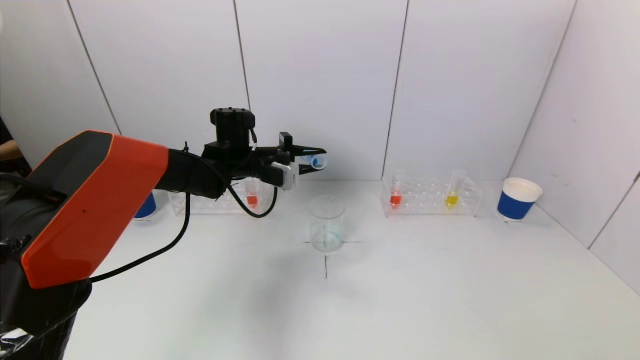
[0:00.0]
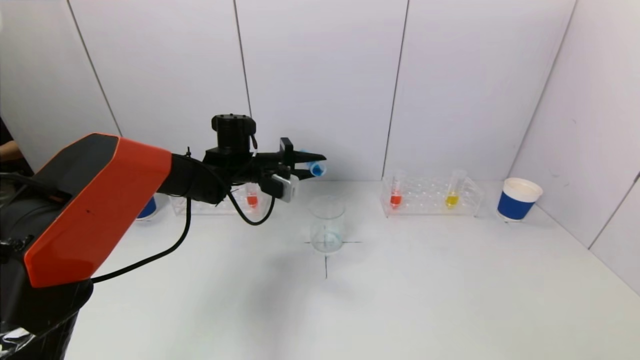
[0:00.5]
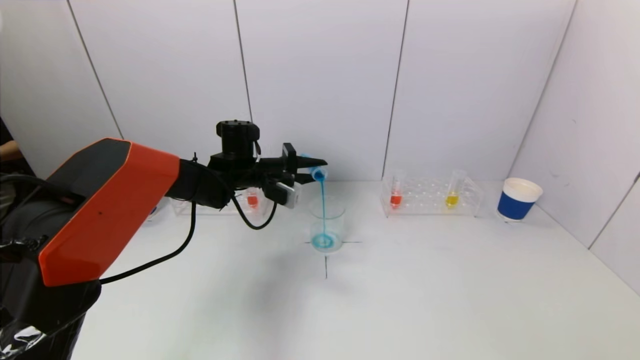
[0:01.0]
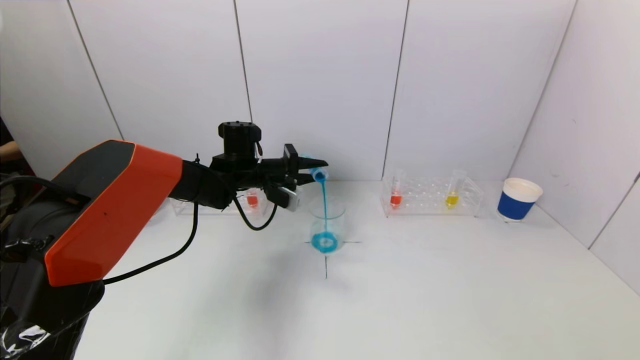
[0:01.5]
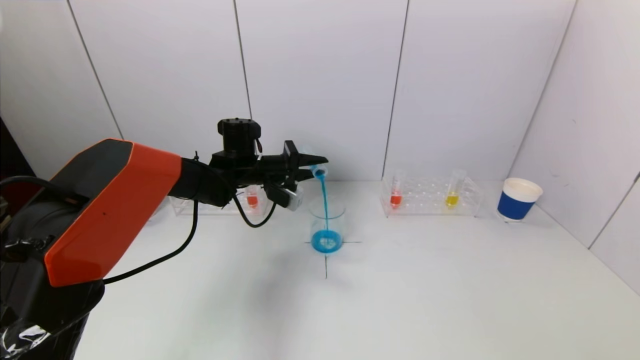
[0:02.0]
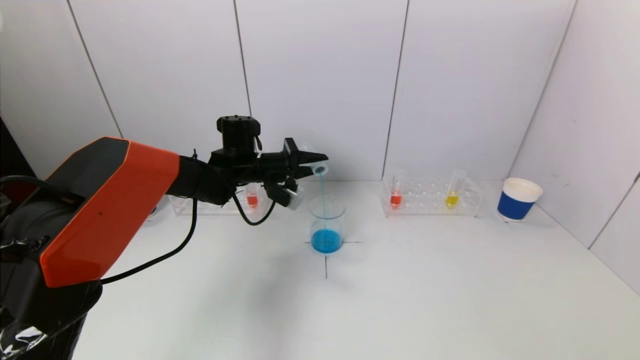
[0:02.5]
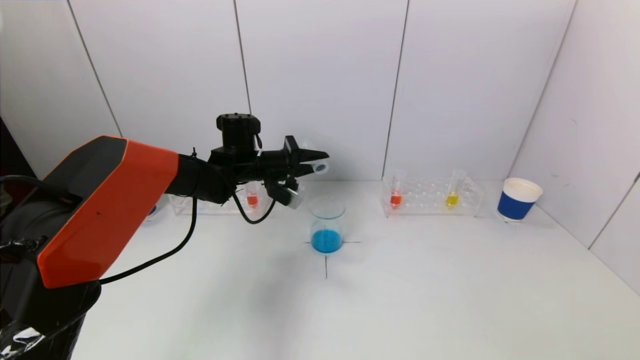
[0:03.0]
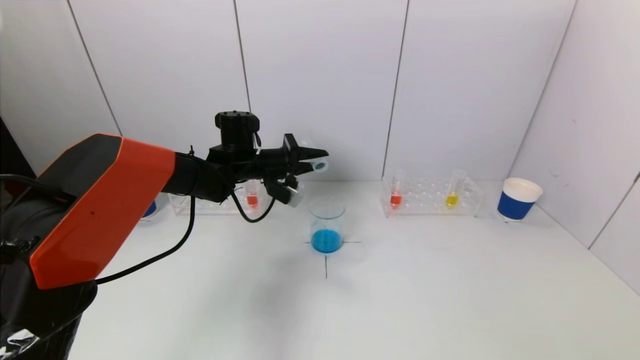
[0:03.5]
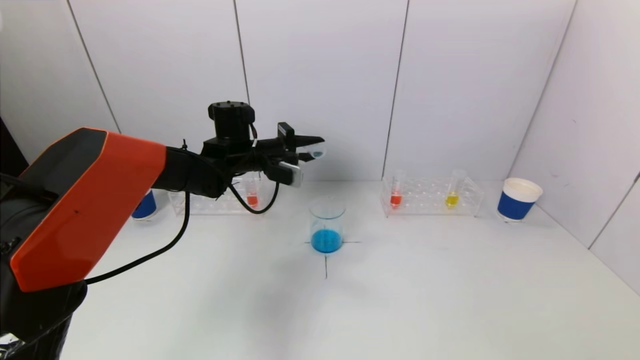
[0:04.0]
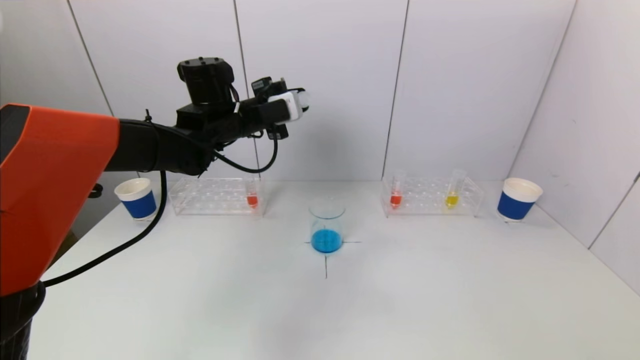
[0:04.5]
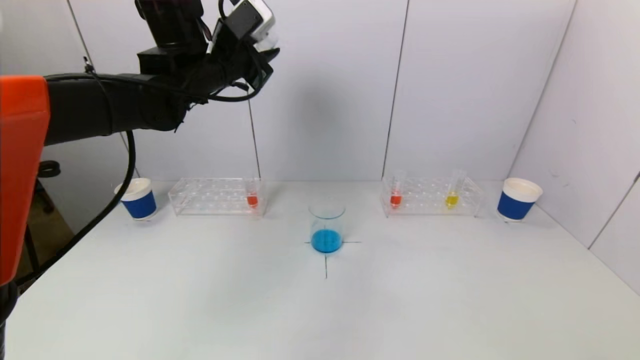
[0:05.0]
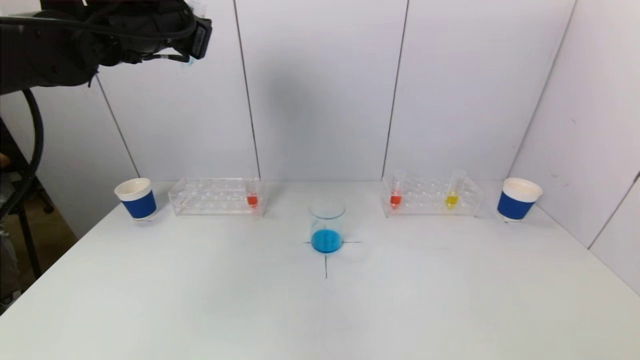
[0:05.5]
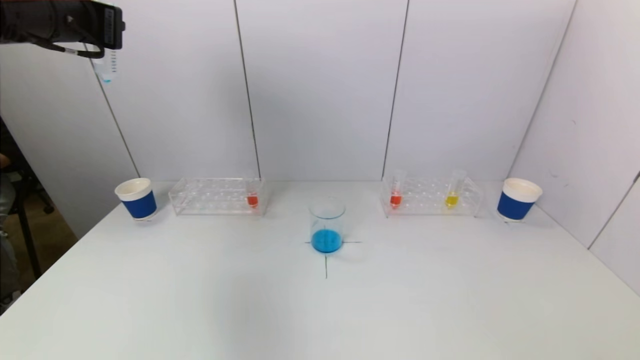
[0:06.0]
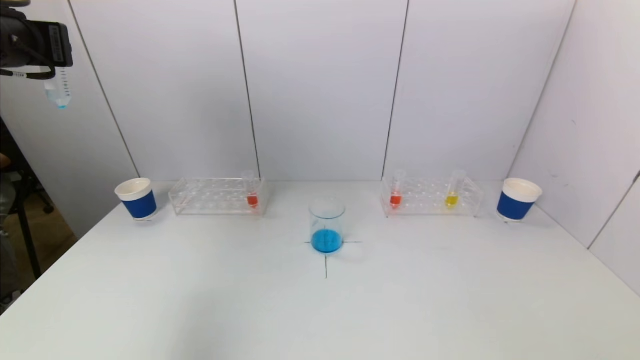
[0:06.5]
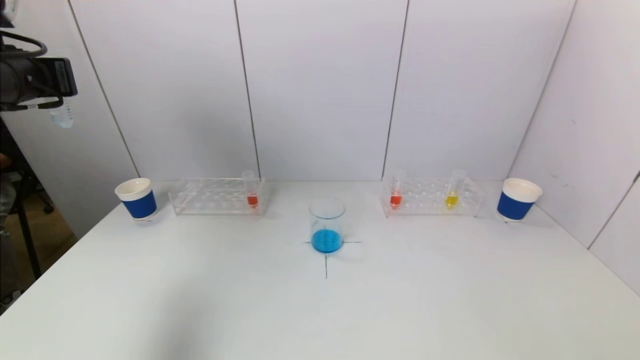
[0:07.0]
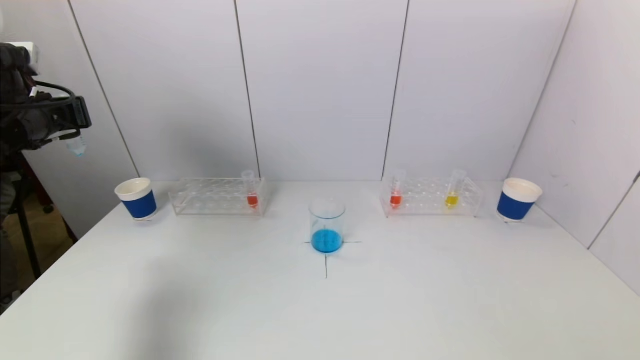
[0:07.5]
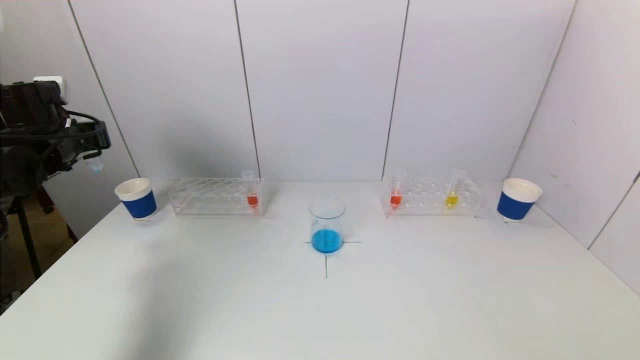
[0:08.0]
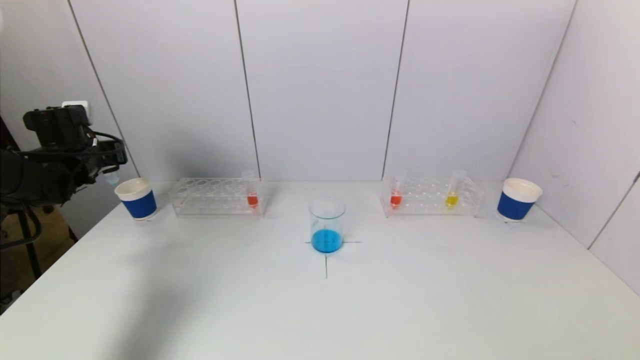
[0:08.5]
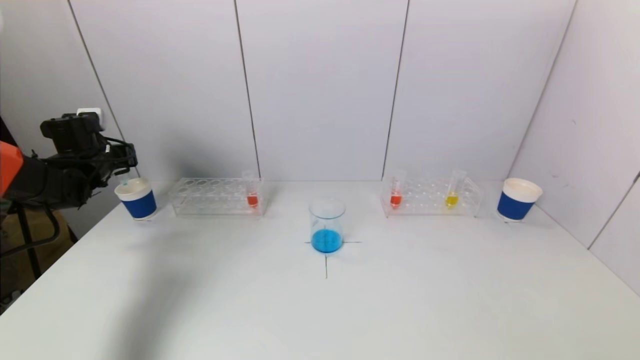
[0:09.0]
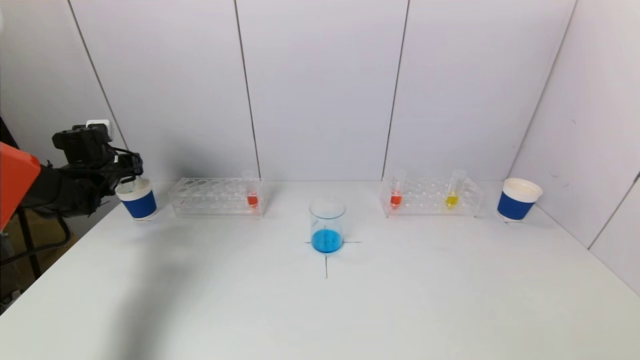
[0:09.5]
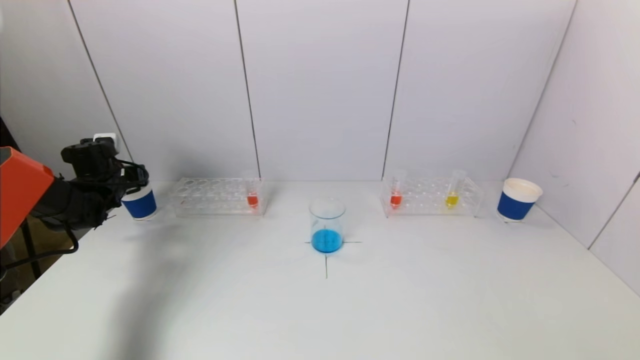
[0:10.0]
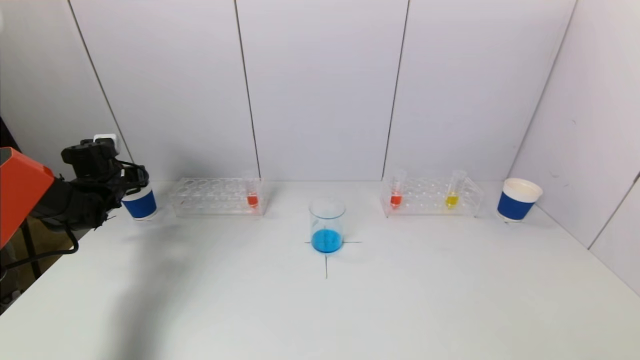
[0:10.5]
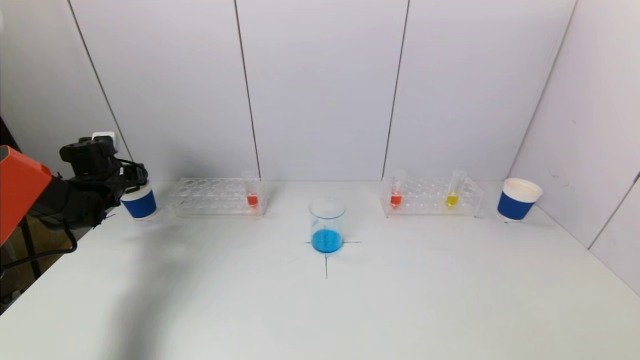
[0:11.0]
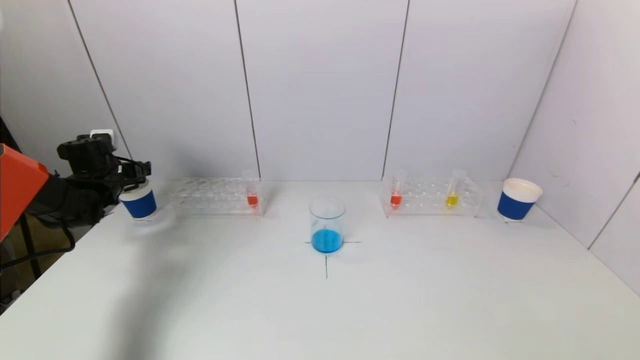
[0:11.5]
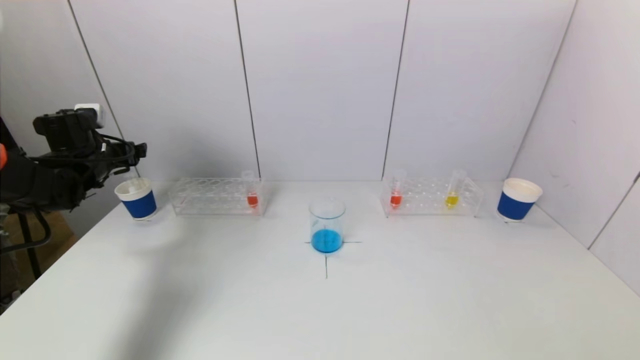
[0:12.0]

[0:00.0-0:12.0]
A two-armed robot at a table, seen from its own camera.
Task of the whole recording: pick up a test tube with pigment on left test tube rack and a test tube with pigment on right test tube rack by grippers and pour them into the beaker.
Step, 0:00.0 to 0:02.5: Pour the blue reagent into the graduated cylinder with the left gripper.
Step, 0:03.0 to 0:11.5: Place the test tube into the paper cup with the left gripper.
0:00.0 to 0:02.0: The grippers move only a little.
0:02.0 to 0:04.0: The grippers move only a little.
0:04.0 to 0:06.0: The left gripper shifts some 30 cm upward, to the left and backward.
0:06.0 to 0:08.0: The left gripper goes roughly 20 cm downward and to the left.
0:08.0 to 0:10.0: The left gripper goes about 15 cm downward and forward.
0:10.0 to 0:12.0: The left gripper shifts some 5 cm upward, and opens up.

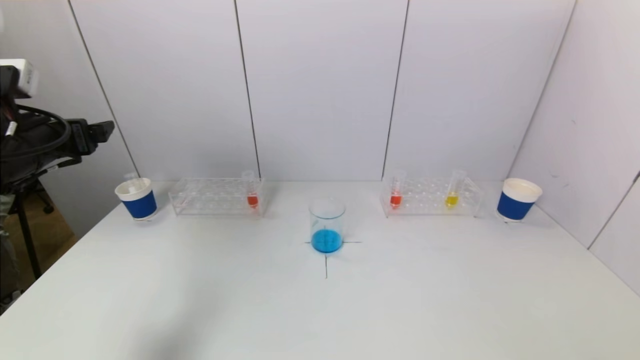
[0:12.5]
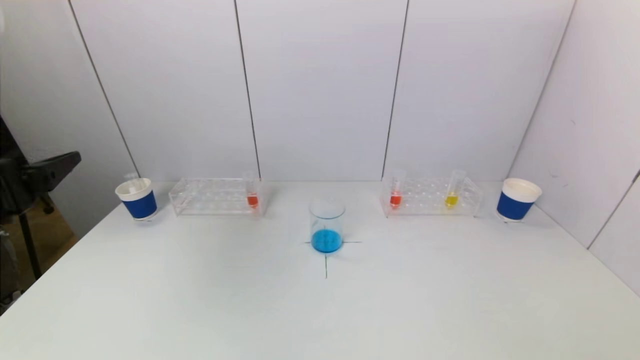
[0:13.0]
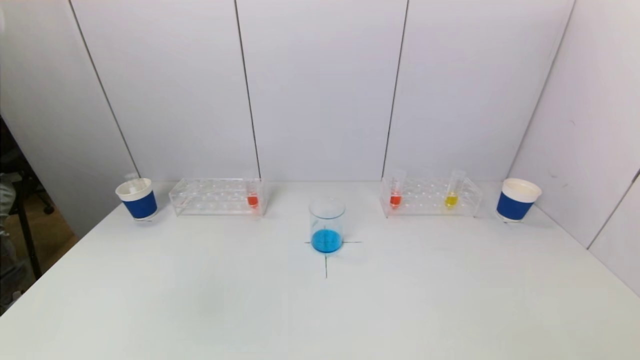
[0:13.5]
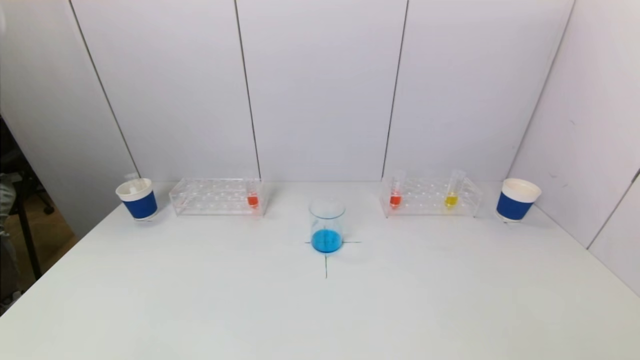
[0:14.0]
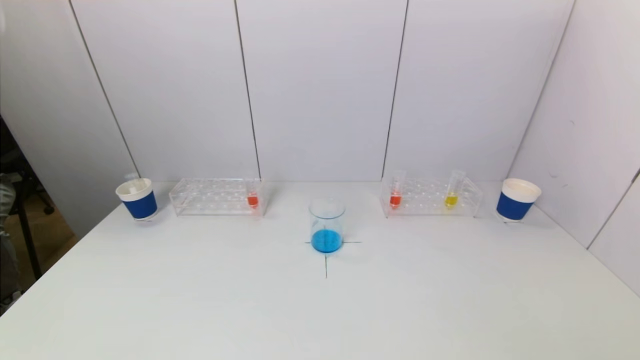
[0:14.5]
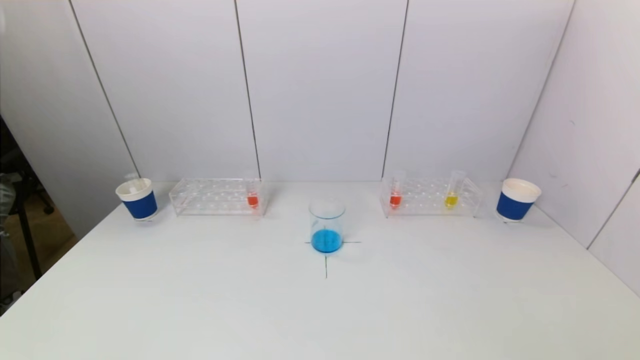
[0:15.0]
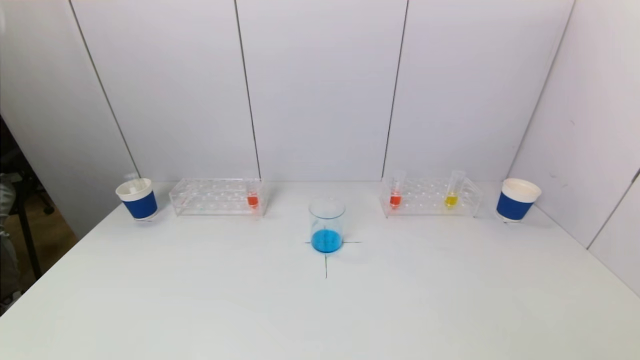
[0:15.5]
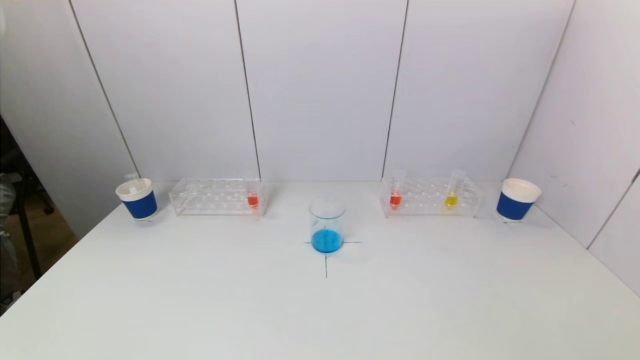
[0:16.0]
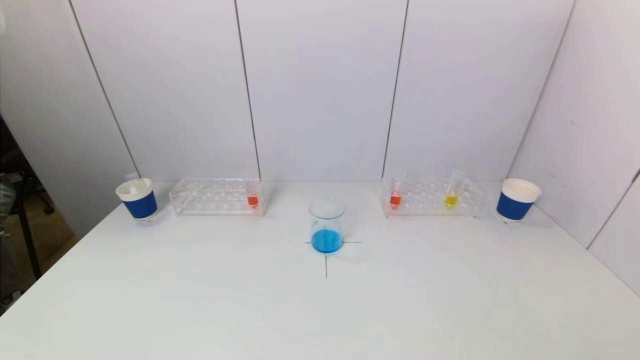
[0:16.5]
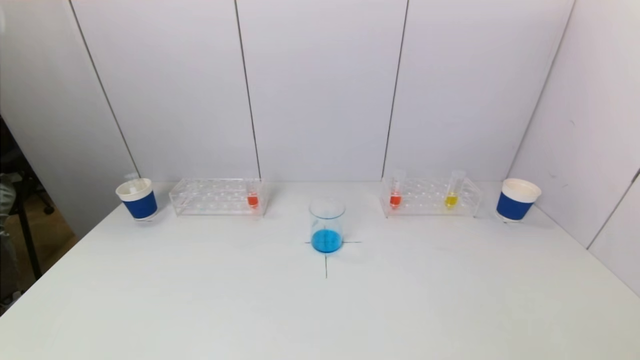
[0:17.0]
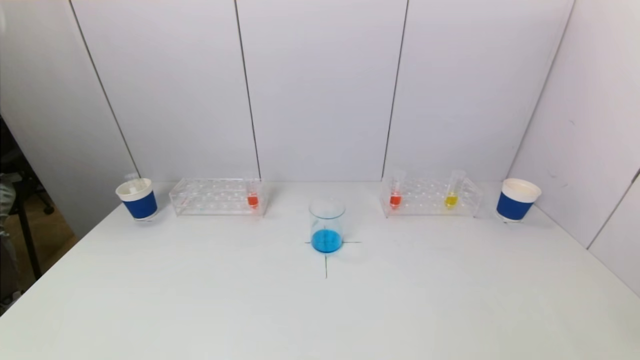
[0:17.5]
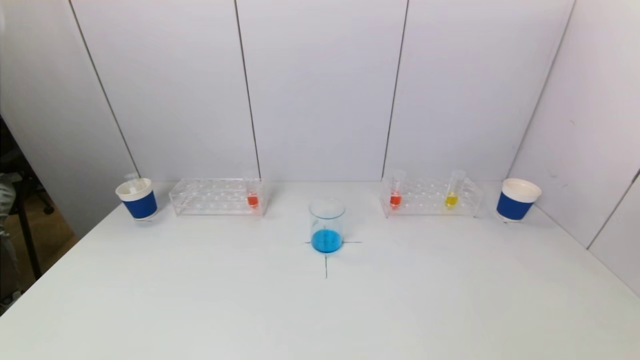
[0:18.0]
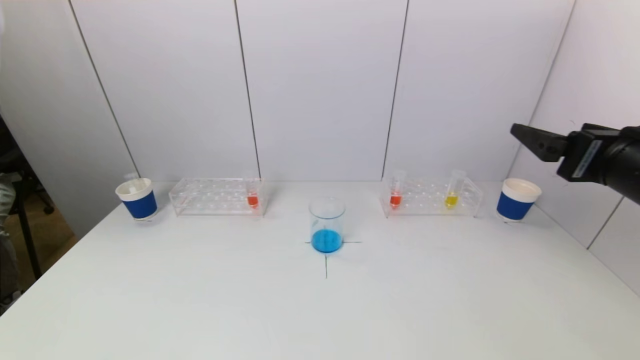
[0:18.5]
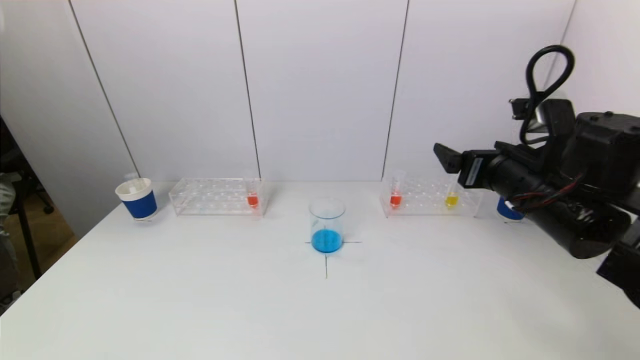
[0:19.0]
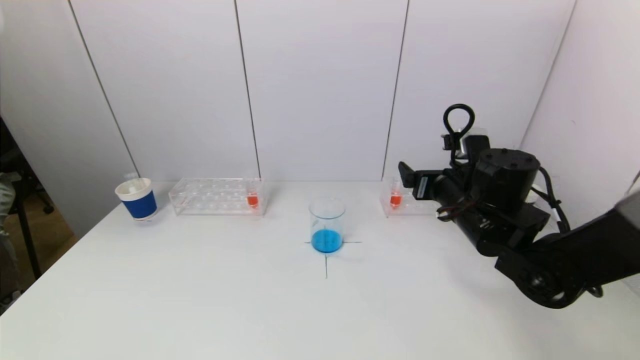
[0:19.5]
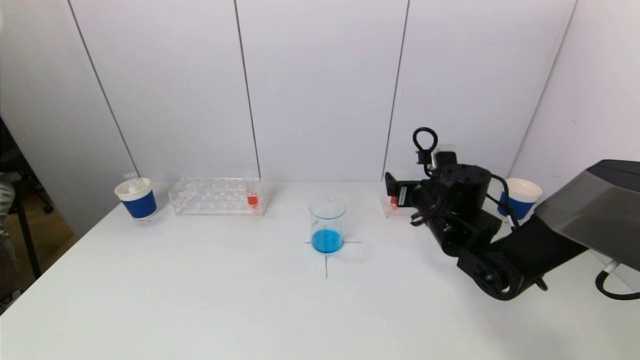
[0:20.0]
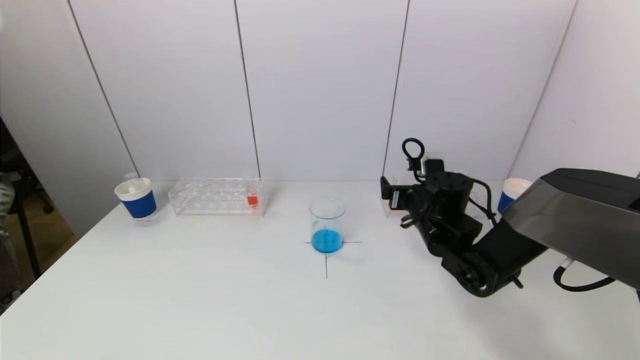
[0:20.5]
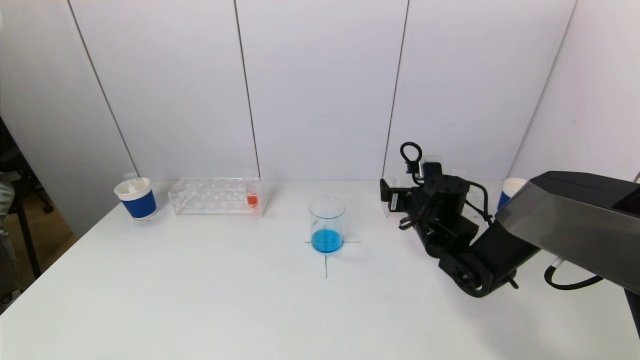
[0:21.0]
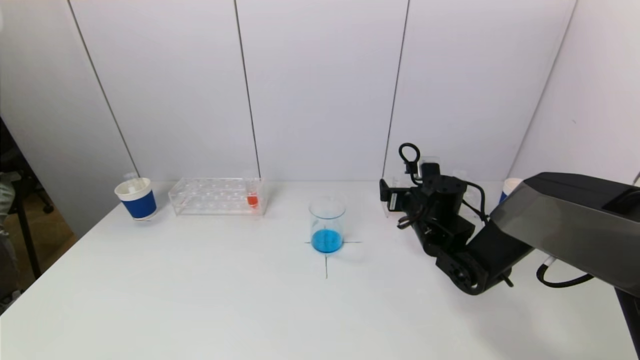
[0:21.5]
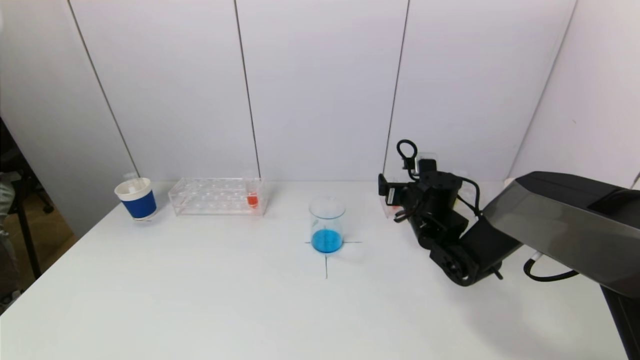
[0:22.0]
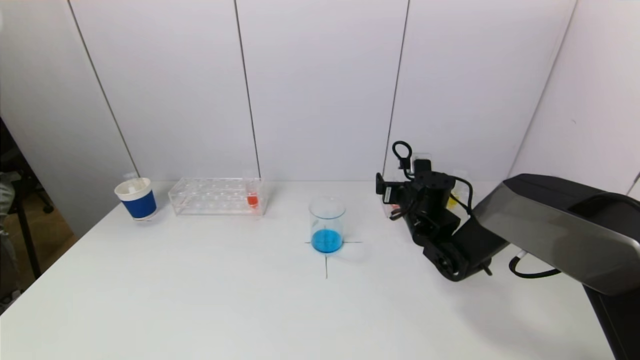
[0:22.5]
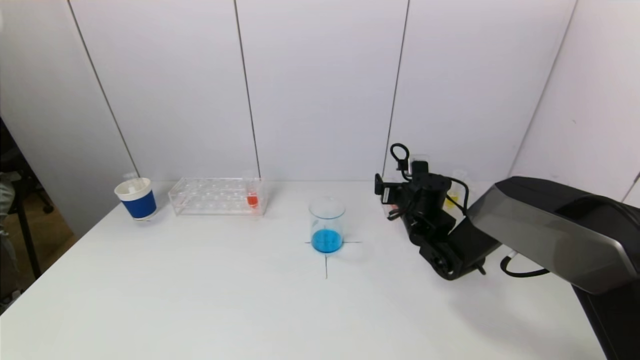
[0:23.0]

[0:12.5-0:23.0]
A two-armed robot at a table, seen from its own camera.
Task of the whole recording: pick up a test tube with pigment on left test tube rack and a test tube with pigment on right test tube rack by grippers and pour them into the beaker.
0:12.5 to 0:14.5: The left gripper is displaced backward and downward by roughly 35 cm.
0:16.5 to 0:19.0: The right gripper travels forward and upward by about 30 cm.
0:19.0 to 0:21.0: The right gripper goes approximately 20 cm downward and forward.
0:21.0 to 0:23.0: There are only small adjustments of the grippers.
